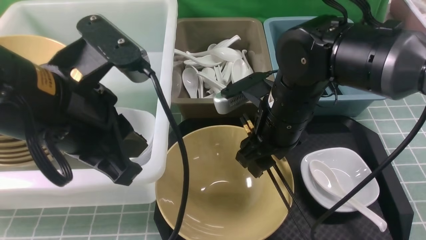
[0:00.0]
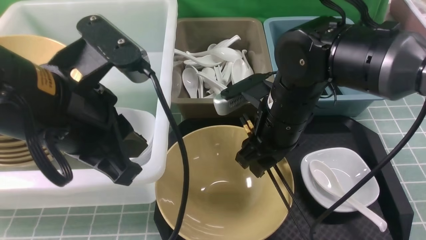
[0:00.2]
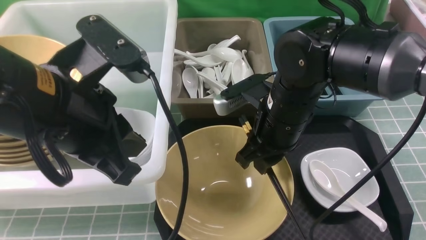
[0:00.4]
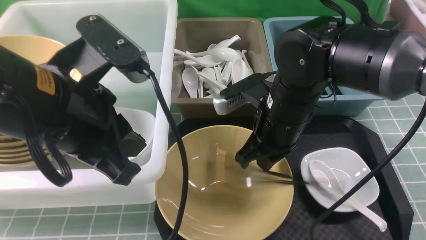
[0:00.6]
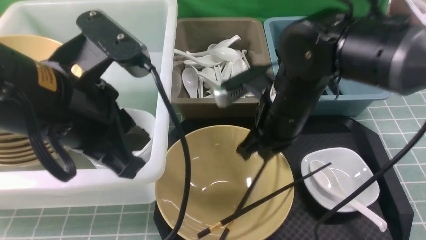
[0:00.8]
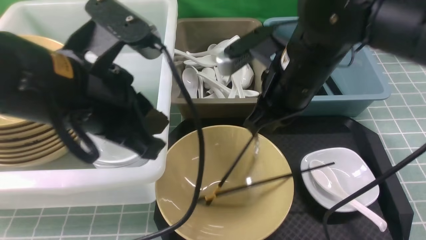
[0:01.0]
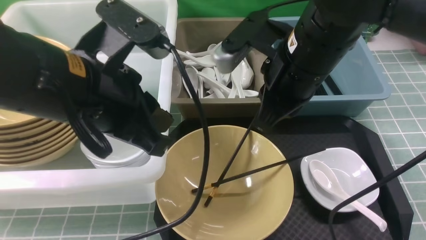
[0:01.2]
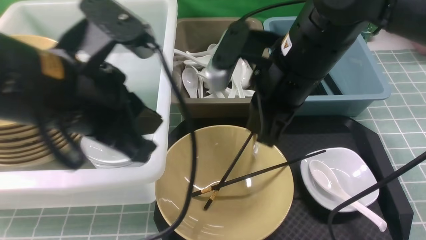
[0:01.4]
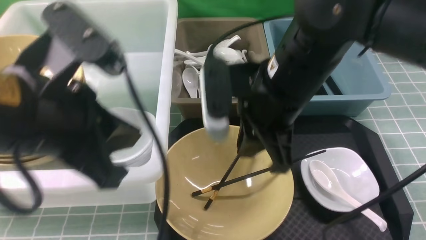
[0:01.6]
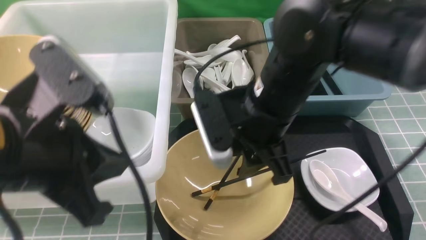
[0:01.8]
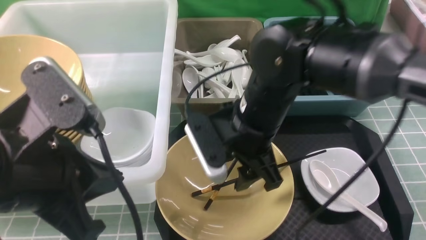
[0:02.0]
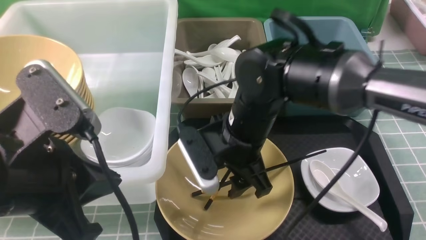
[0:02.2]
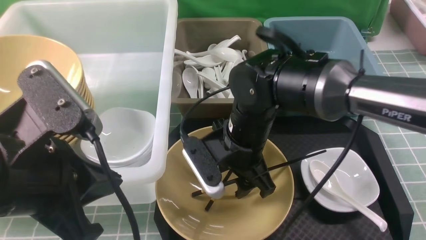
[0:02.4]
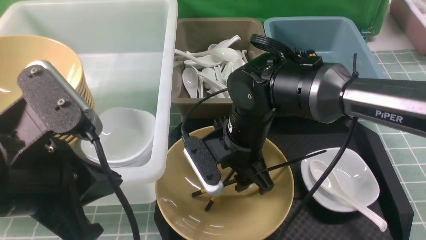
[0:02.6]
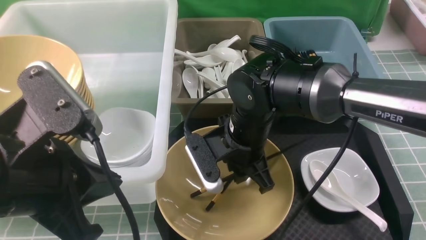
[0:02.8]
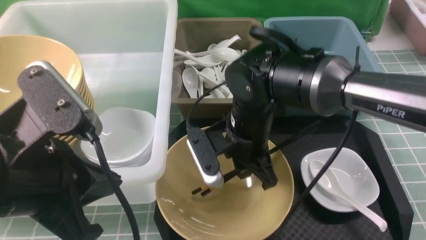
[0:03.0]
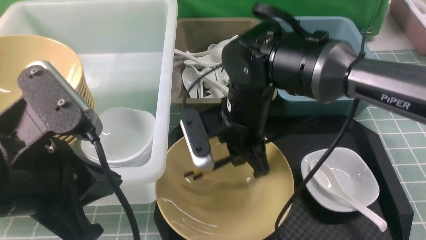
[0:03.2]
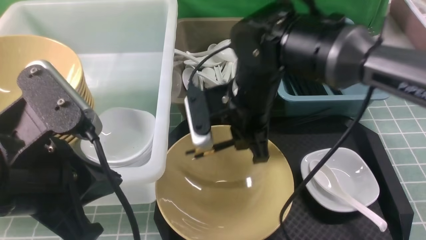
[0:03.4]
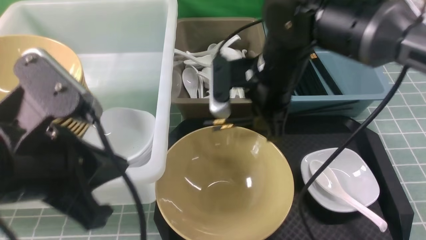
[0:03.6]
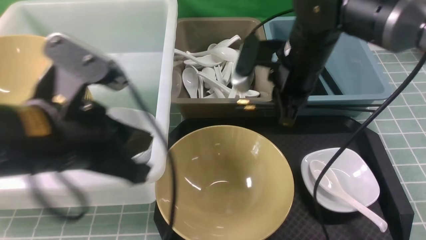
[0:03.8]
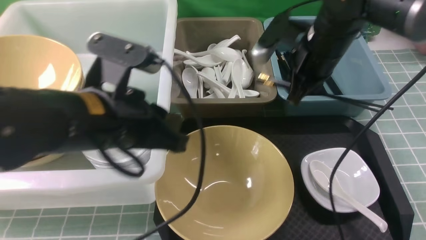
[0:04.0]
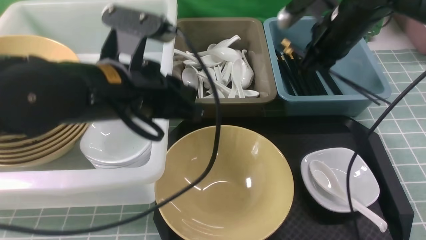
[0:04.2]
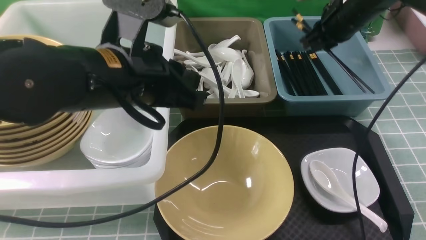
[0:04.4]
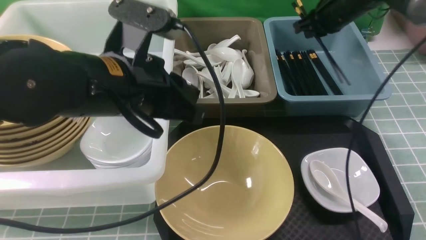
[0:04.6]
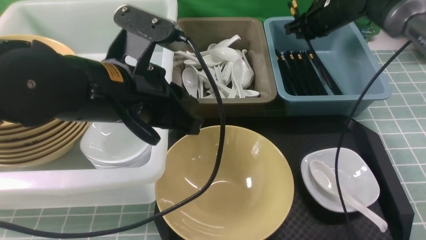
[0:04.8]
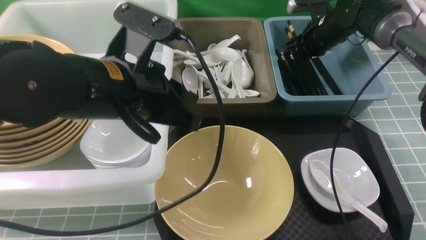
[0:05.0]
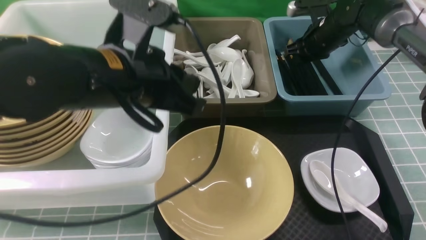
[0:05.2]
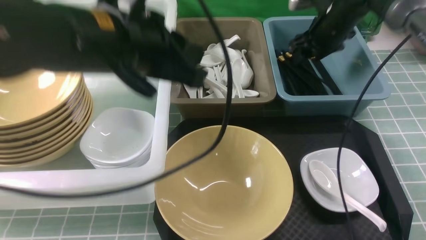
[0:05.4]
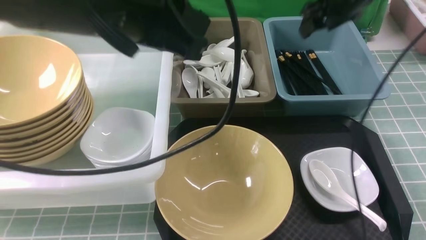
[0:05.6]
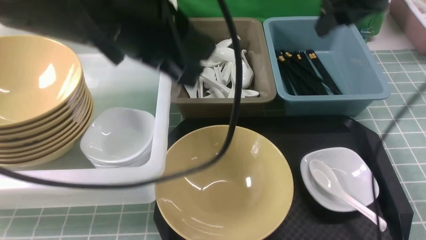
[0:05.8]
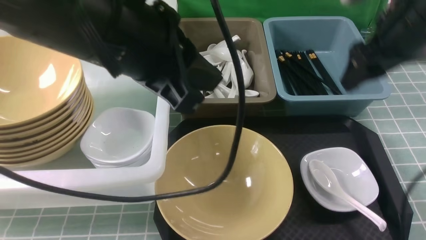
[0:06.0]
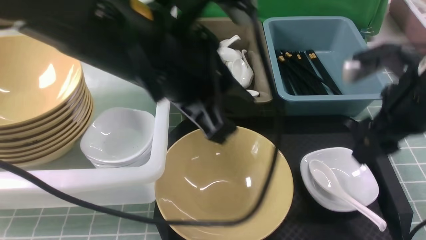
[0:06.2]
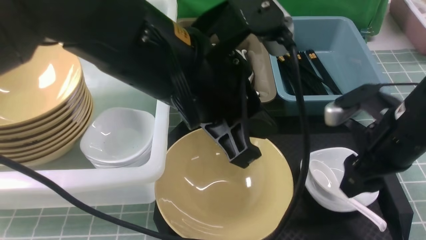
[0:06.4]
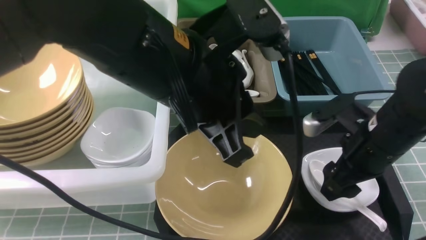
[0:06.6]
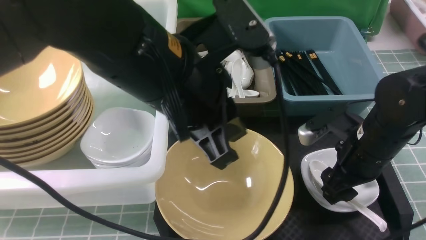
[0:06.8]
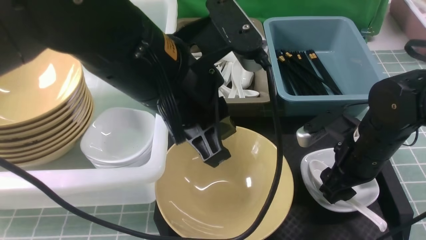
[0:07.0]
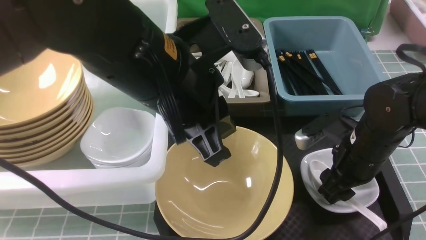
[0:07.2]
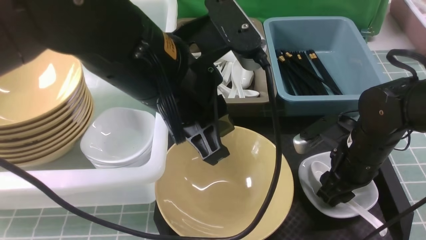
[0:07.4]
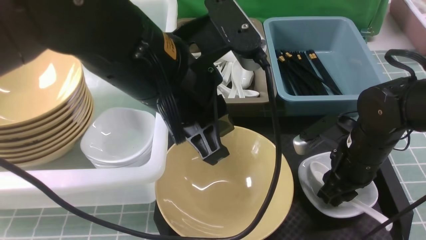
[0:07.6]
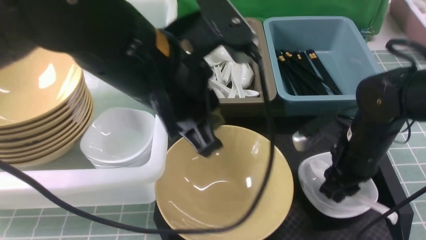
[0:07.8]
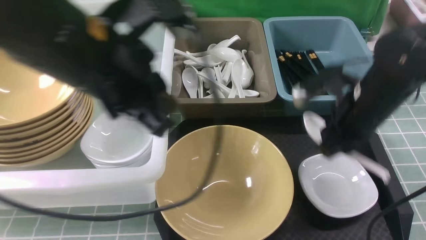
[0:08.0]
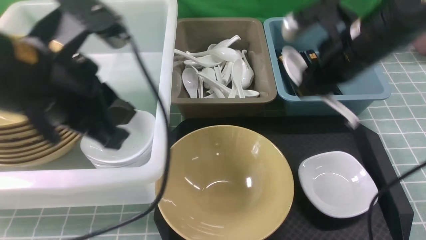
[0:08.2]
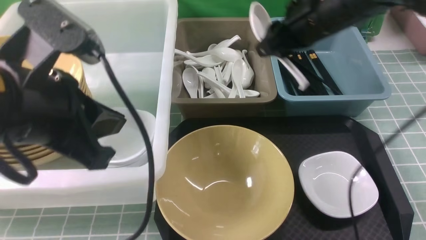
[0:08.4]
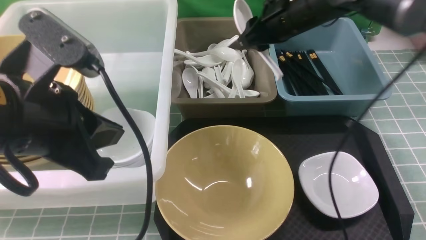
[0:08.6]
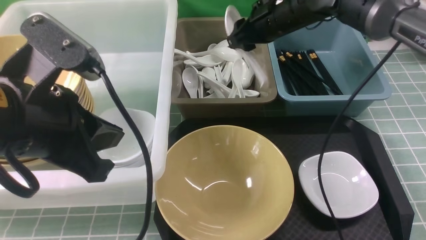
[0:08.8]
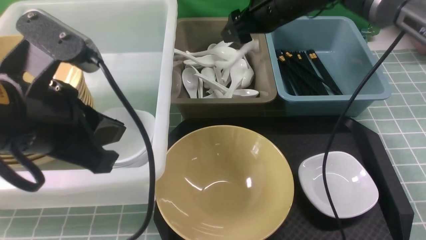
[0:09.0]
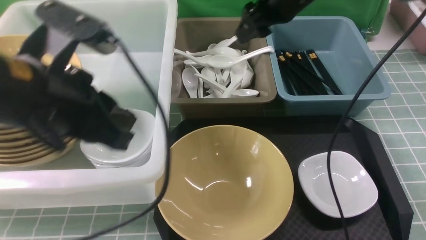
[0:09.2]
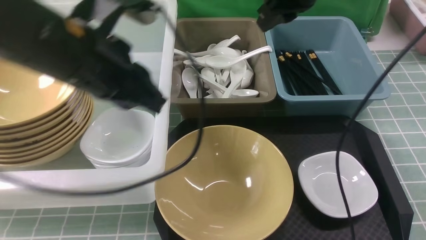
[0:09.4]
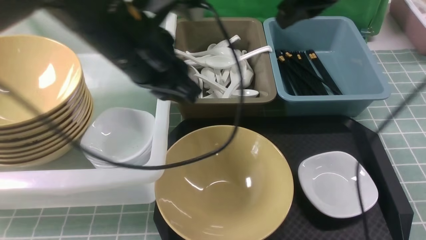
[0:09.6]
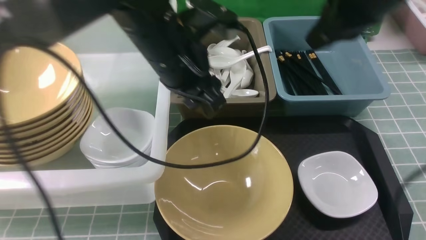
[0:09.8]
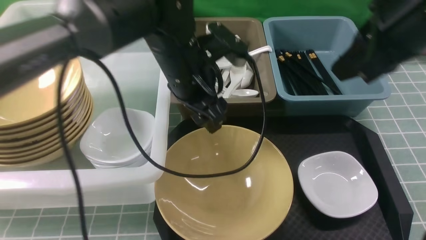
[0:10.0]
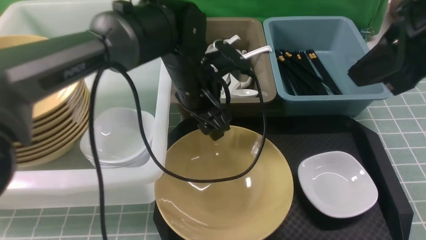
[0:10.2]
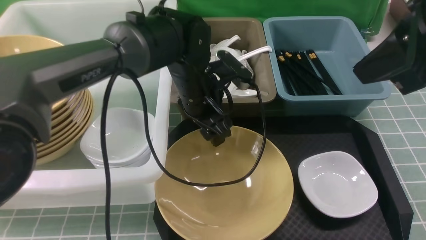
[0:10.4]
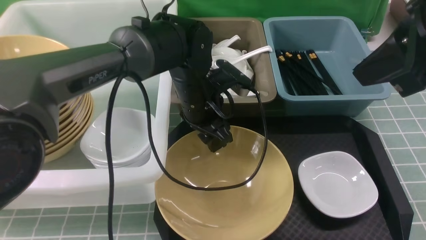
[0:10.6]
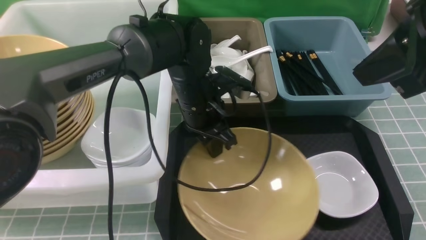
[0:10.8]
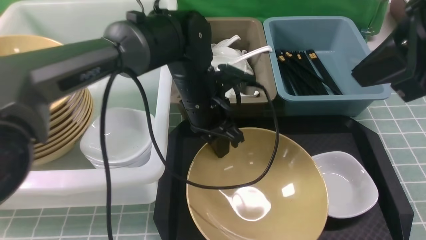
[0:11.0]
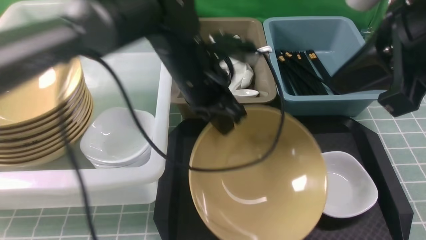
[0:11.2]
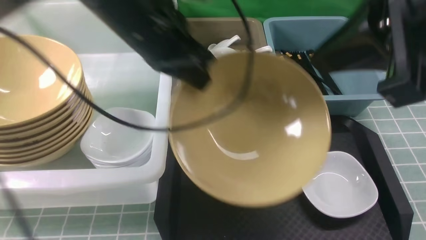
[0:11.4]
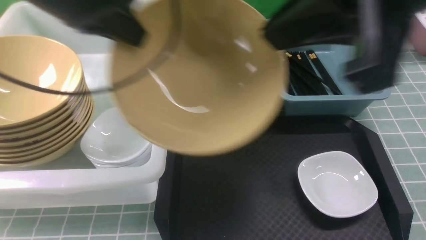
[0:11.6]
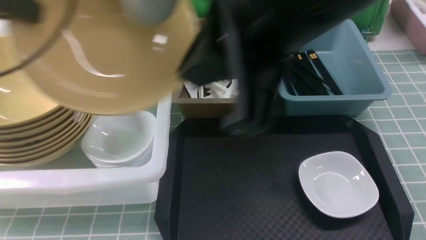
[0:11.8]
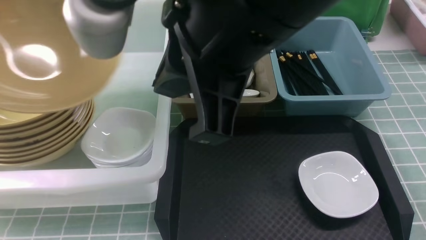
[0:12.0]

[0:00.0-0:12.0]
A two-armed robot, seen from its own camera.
Task of the whole recording: on blue table put chopsticks spoon bowls plates into blue grey white boxes.
Step, 0:00.0 to 0:03.2: use the right arm to grab the chopsticks.
Step, 0:03.4 to 0:05.4: use the right arm to put the chopsticks into the small storage box on the right.
Step, 0:05.6 to 0:07.8: use the right arm to grab the soup spoon in the middle.
Step, 0:08.0 to 0:09.0: use the right arm to put the soup spoon into the small storage box in the middle.
Step, 0:09.2 to 0:11.0: use the left arm to grab the yellow noodle bowl on the left.
0:00.0 to 0:01.6: The right gripper moves upward, some 5 cm, and closes its fingers.
0:01.6 to 0:03.0: The right gripper is displaced downward by roughly 10 cm, and opens, then closes once more.
0:03.0 to 0:04.4: The left gripper goes some 15 cm forward and to the right. Meanwhile the right gripper travels to the right and forward by roughly 25 cm.
0:04.4 to 0:06.0: The left gripper travels upward by some 5 cm, while the right gripper goes about 15 cm backward, and opens its fingers.
0:06.0 to 0:07.6: The right gripper travels downward by approximately 15 cm, and closes its fingers.
0:07.6 to 0:09.0: The right gripper goes roughly 25 cm forward, upward and to the left, while the left gripper goes some 10 cm to the left.
0:09.0 to 0:10.4: The left gripper shifts approximately 25 cm forward, to the right and downward, and opens its fingers, while the right gripper goes approximately 25 cm backward, to the right and upward, and closes.
0:10.4 to 0:12.0: The left gripper is displaced to the left and upward by some 35 cm, and closes. The right gripper is displaced to the left by roughly 20 cm.

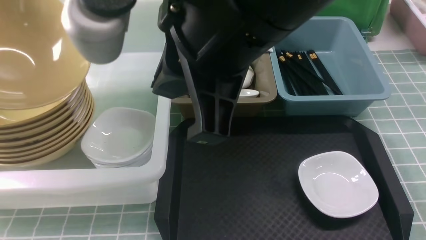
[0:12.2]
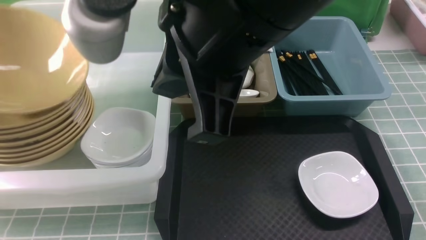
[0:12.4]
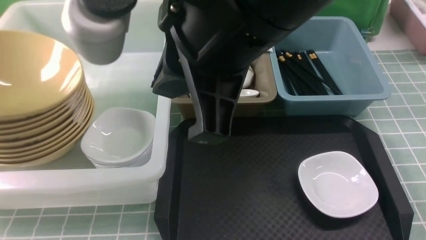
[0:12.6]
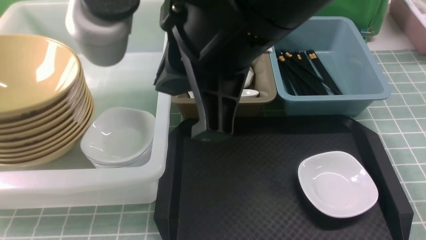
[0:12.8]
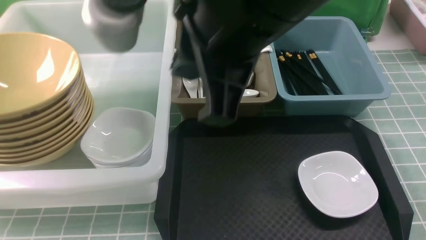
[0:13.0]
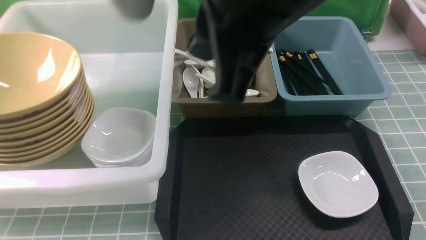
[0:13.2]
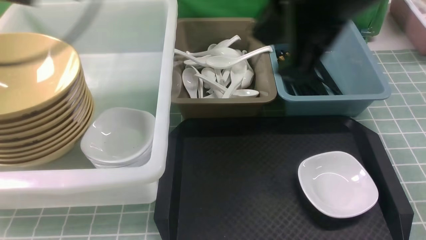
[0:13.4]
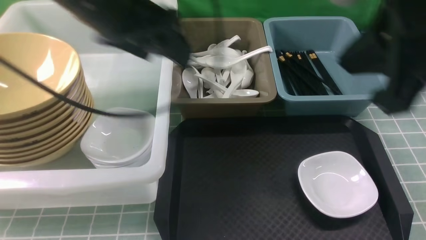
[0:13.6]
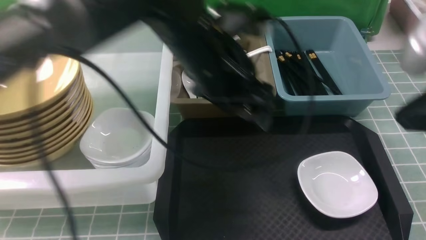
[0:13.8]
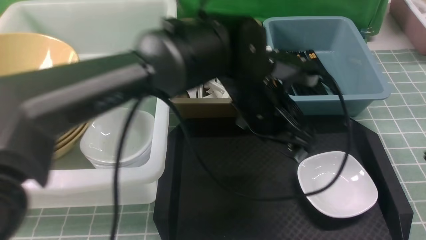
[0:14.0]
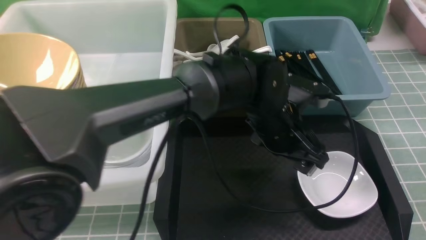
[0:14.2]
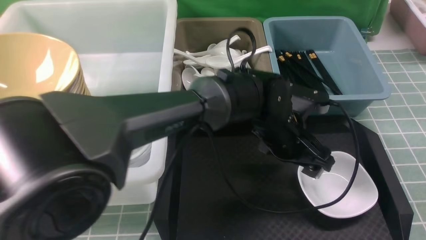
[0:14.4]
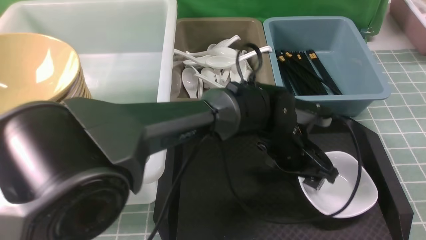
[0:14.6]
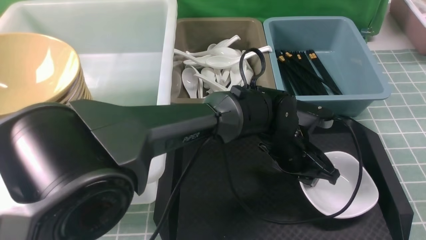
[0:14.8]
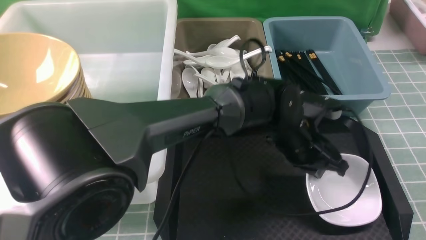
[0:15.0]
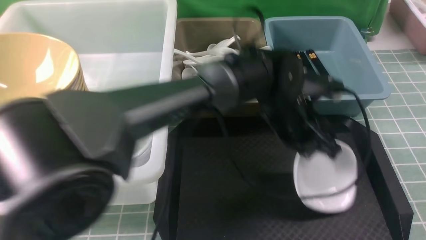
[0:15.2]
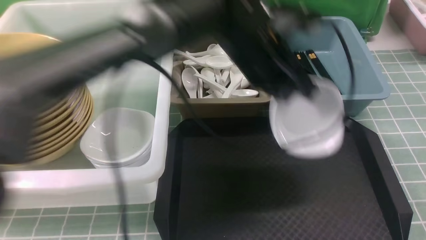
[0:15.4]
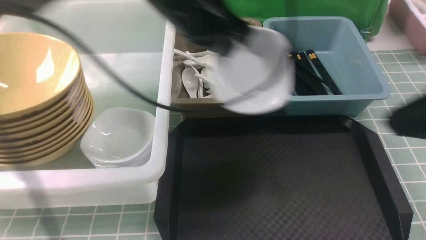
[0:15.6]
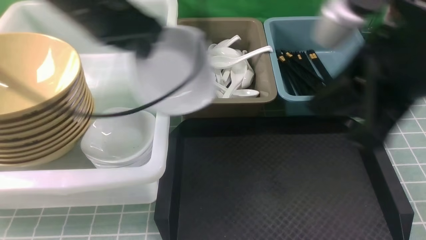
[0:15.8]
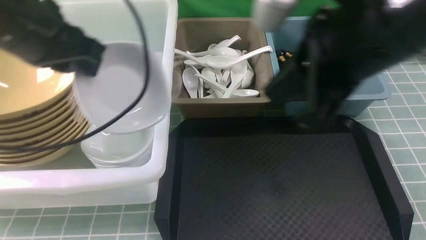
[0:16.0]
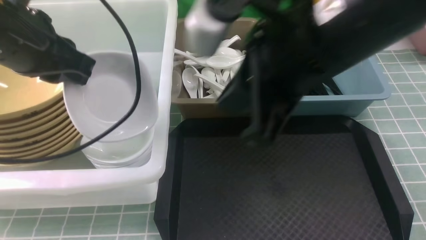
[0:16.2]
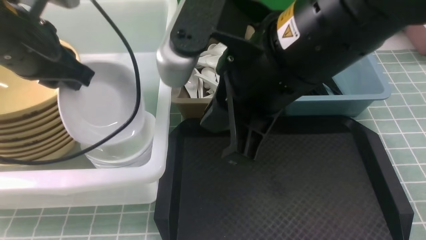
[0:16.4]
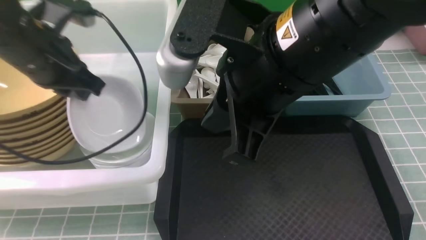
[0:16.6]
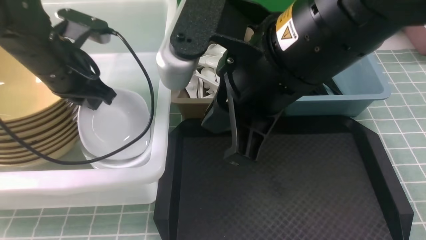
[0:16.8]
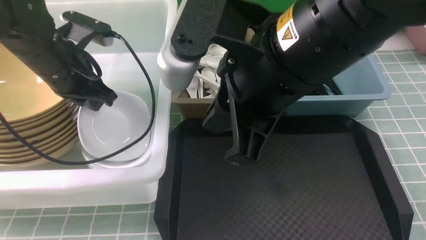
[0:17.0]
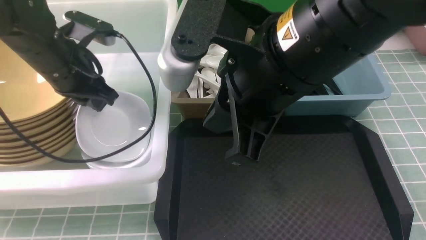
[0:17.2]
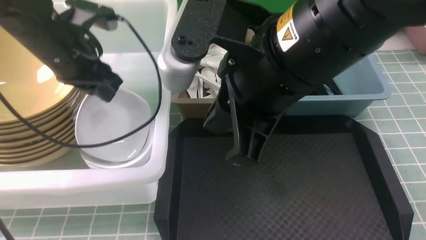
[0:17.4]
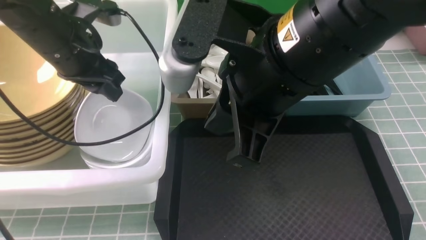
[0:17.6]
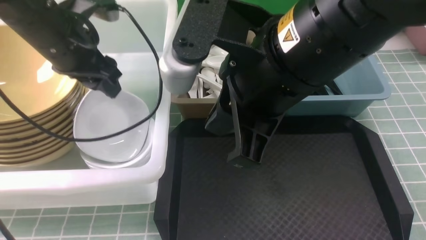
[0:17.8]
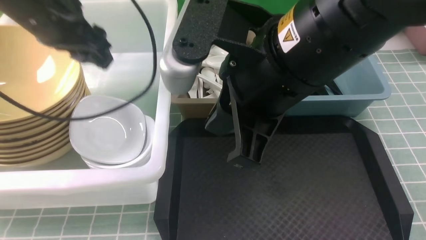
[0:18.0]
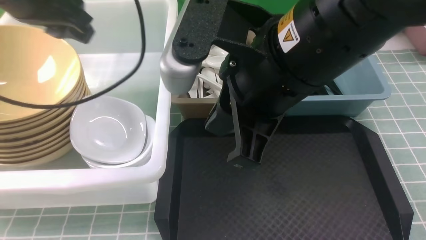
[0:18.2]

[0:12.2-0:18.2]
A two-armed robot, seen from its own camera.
Task of the whole recording: on blue table put chopsticks spoon bowls plates into blue grey white boxes.
Step, 0:13.2 to 0:14.8: use the left arm to grab the plate.
Step, 0:15.2 to 0:18.0: use the left arm to put the plate into the large storage box on the left.
0:12.2 to 0:13.8: The left gripper is displaced to the right by about 40 cm, and opens up. Meanwhile the right gripper heads to the right, covering roughly 20 cm.
0:13.8 to 0:15.2: The right gripper moves approximately 5 cm; the left gripper is displaced to the right and downward by about 10 cm, and closes.
0:15.2 to 0:16.6: The right gripper travels to the left and forward by approximately 20 cm, while the left gripper shifts about 30 cm to the left.
0:16.6 to 0:18.2: The left gripper heads upward, covering about 10 cm.
